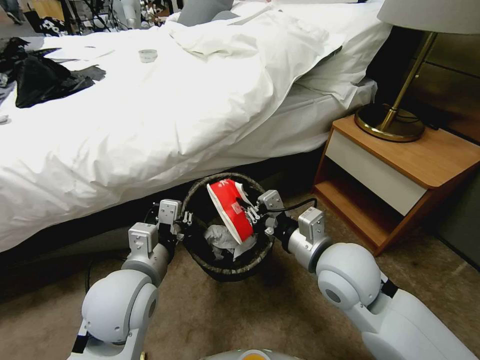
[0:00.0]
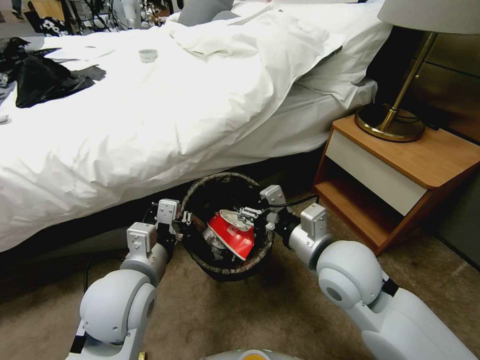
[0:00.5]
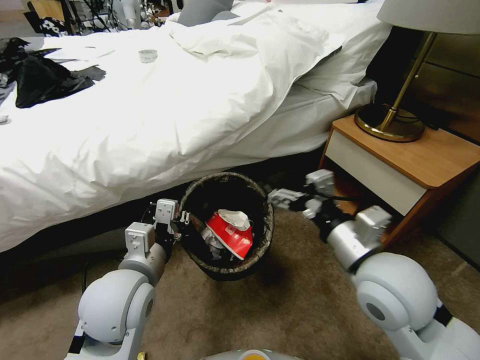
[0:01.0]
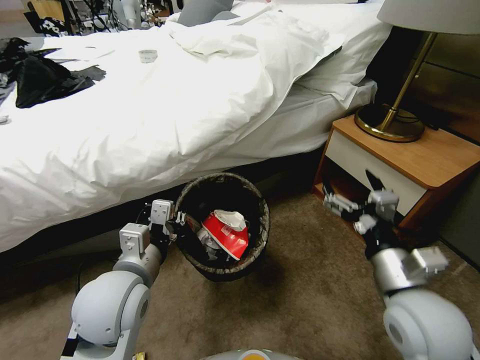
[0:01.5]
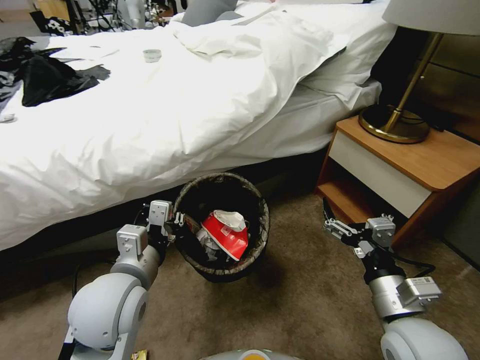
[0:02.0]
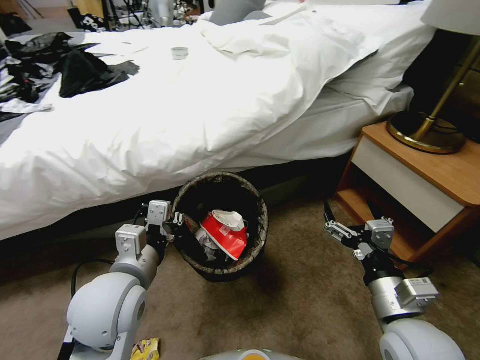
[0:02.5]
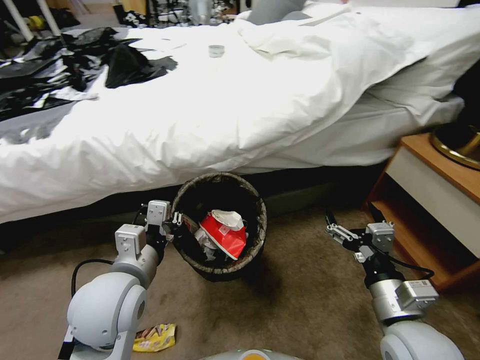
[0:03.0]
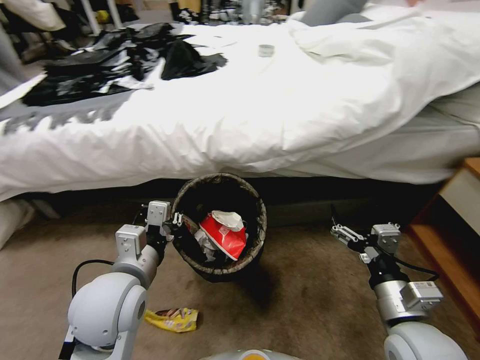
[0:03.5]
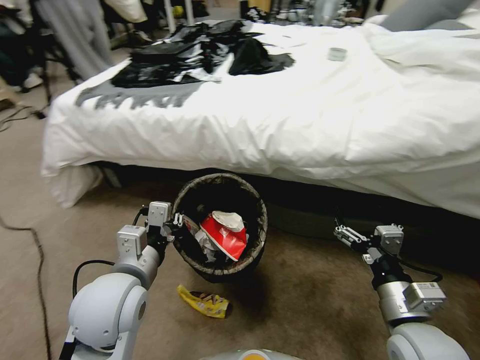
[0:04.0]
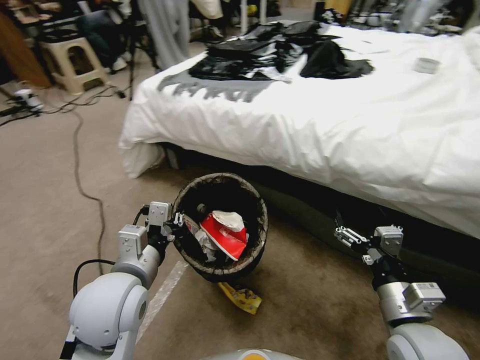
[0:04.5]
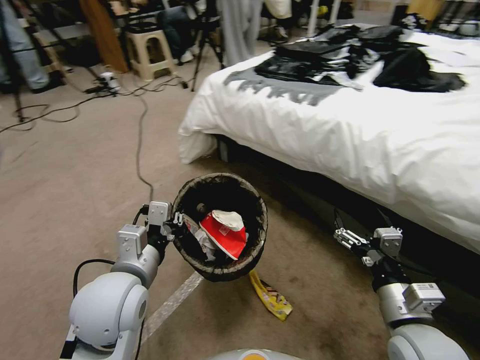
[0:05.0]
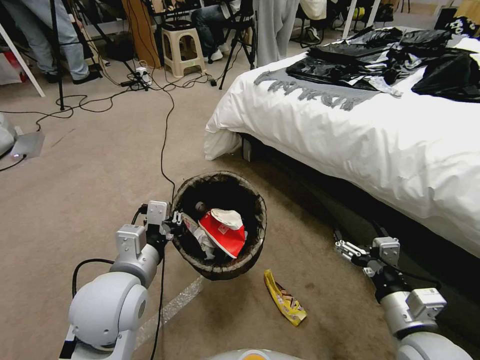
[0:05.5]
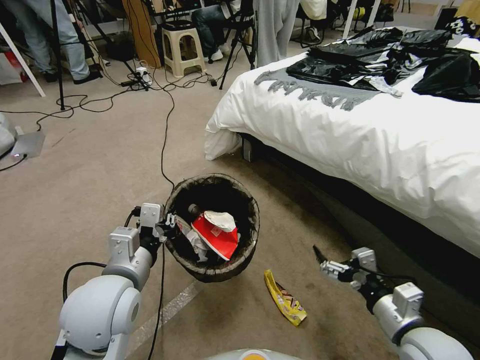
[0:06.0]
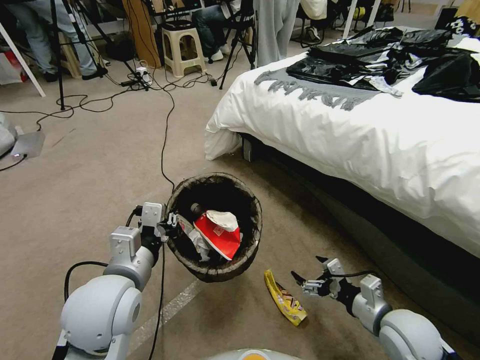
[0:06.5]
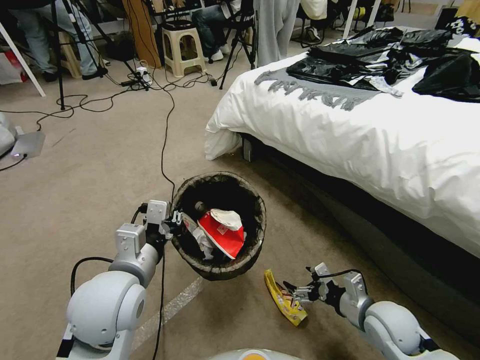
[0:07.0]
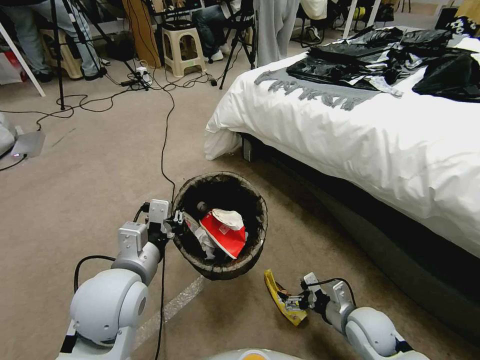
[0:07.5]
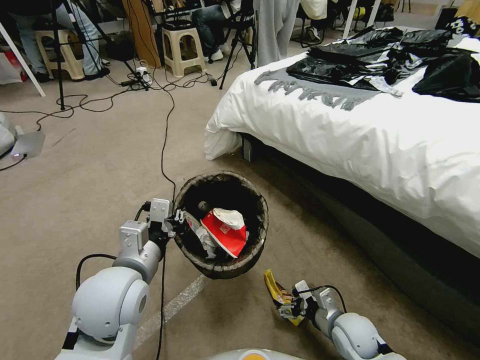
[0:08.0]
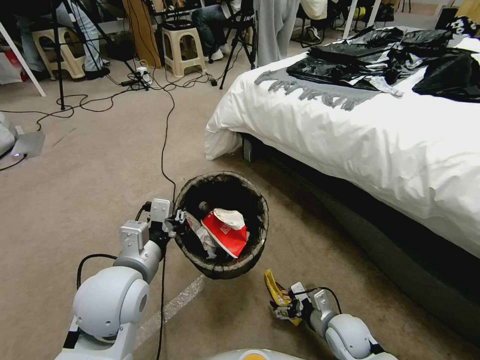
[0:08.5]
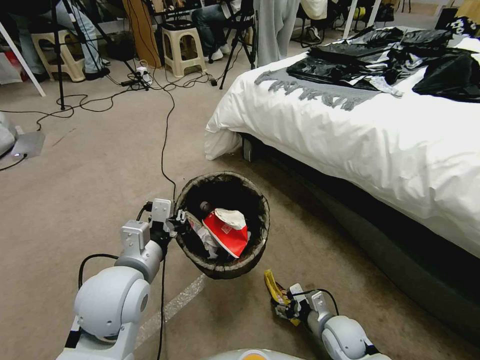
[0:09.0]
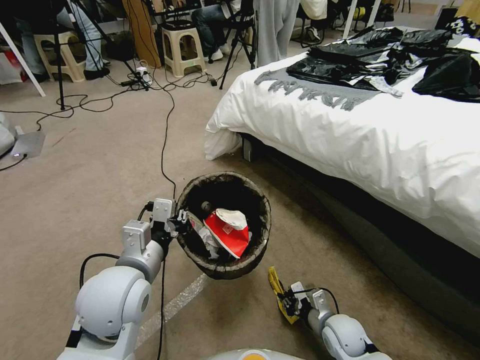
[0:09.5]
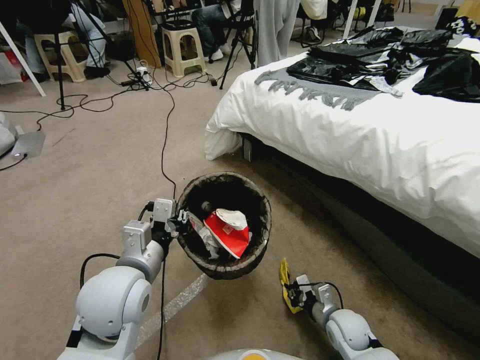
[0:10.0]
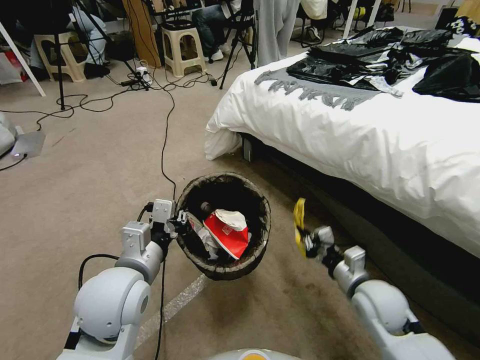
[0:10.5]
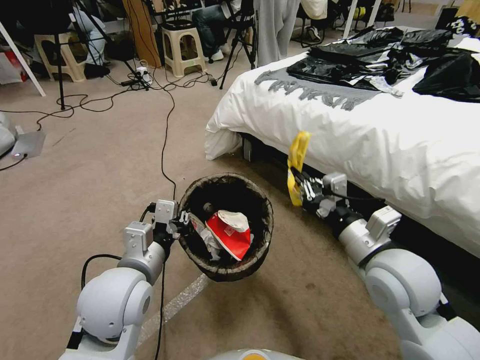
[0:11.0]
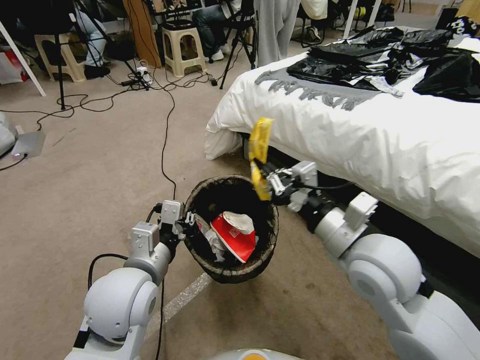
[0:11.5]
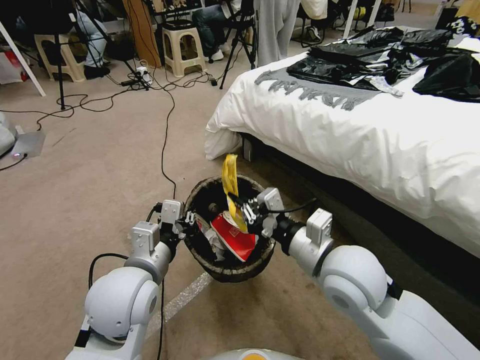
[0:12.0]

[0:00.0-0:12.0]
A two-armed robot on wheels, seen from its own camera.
Task of the whole recording: Pick up the trash bin, then pick up the garbage from the floor and place it into the trash bin.
0:00.0 to 0:02.0: The right gripper goes roughly 15 cm to the right, backward and downward, and opens its fingers.
0:04.0 to 0:06.0: The right gripper ends up some 5 cm from where it was.
0:06.0 to 0:08.0: The right gripper travels downward by about 15 cm.
0:08.0 to 0:10.0: The right gripper closes.
0:10.0 to 0:12.0: The right gripper travels upward by about 30 cm.

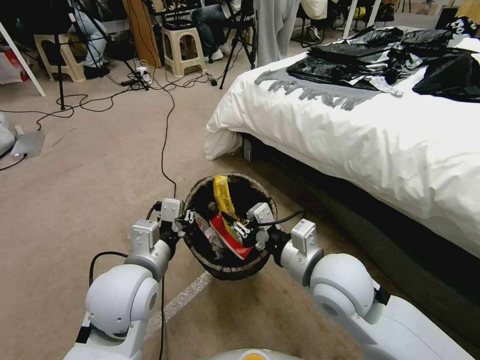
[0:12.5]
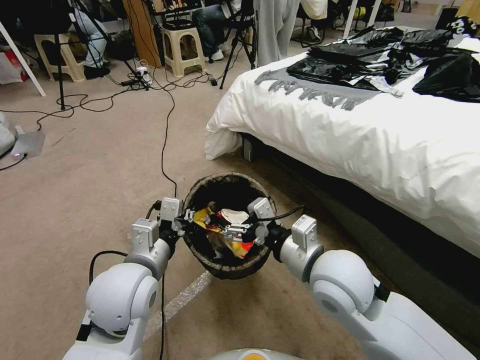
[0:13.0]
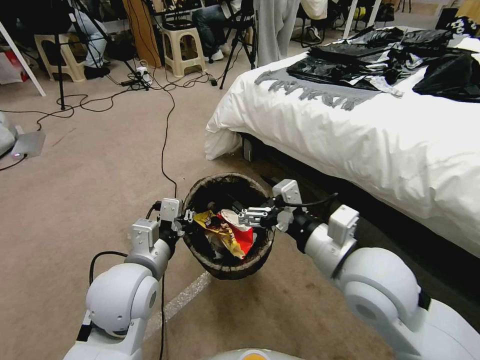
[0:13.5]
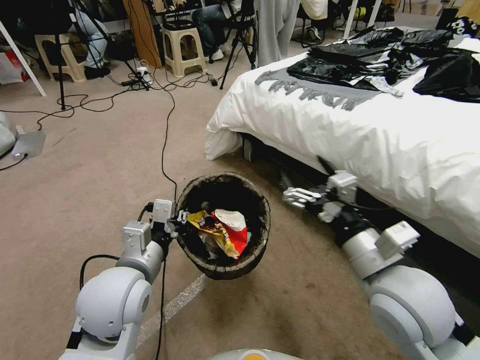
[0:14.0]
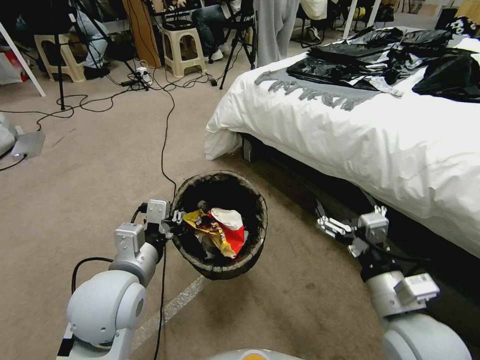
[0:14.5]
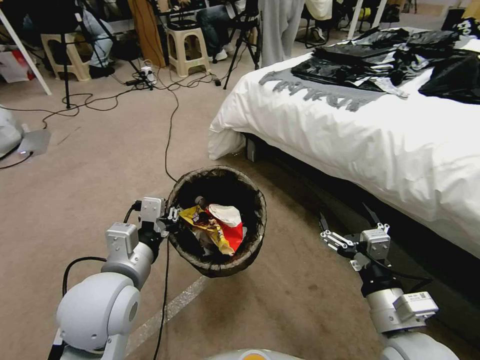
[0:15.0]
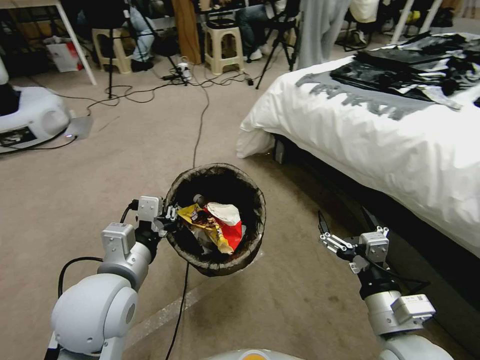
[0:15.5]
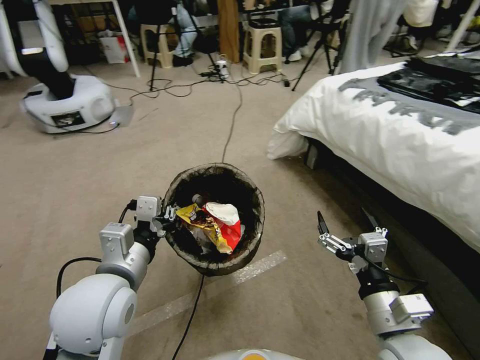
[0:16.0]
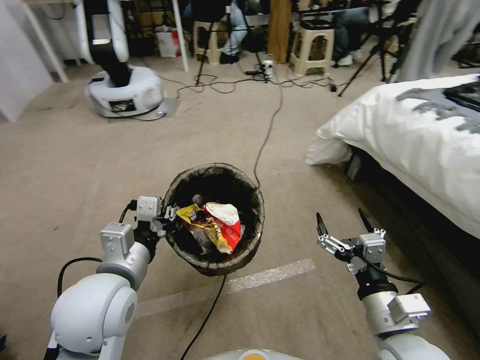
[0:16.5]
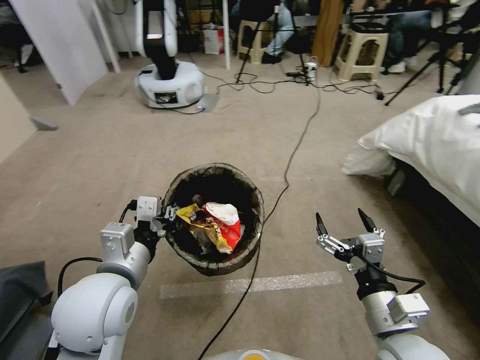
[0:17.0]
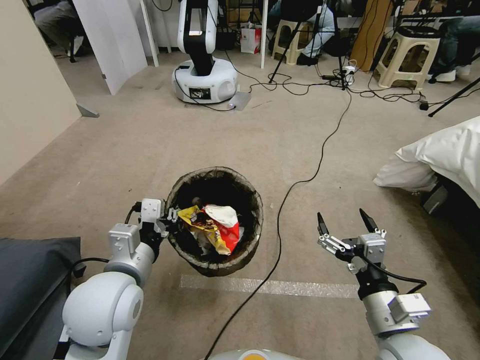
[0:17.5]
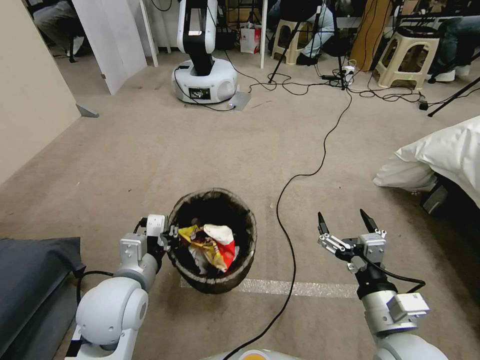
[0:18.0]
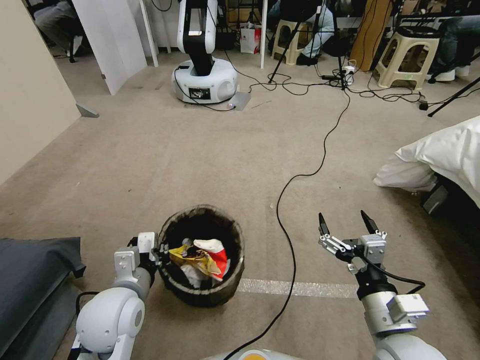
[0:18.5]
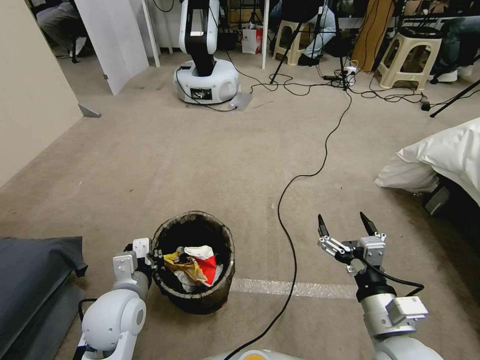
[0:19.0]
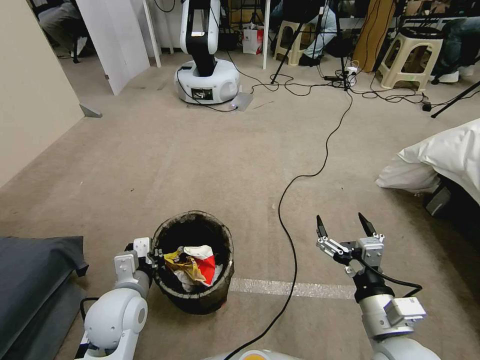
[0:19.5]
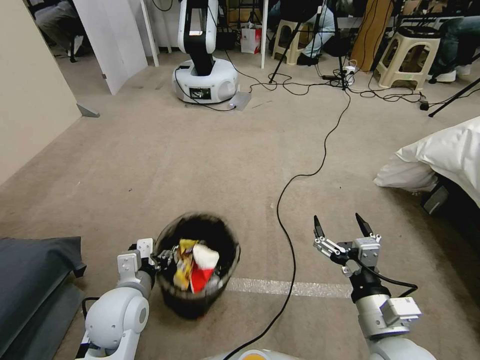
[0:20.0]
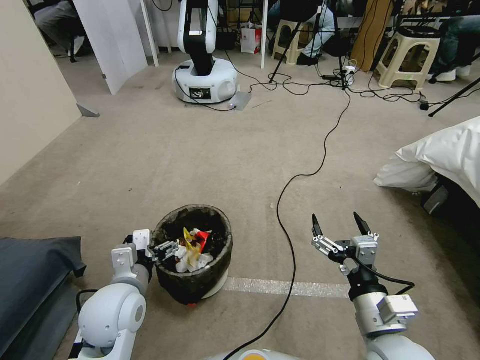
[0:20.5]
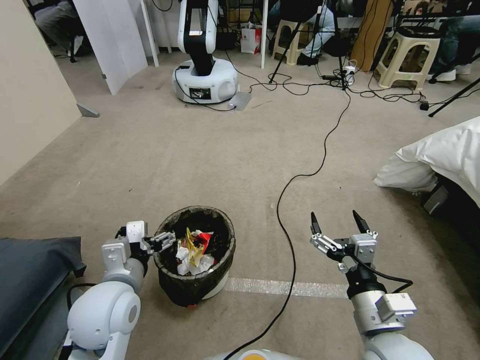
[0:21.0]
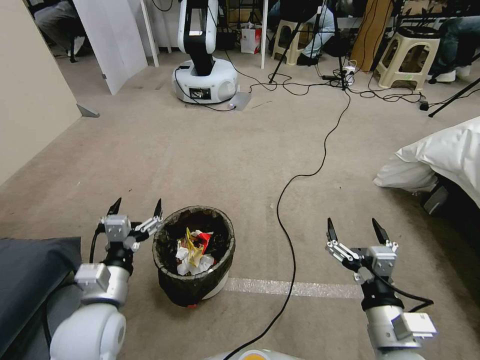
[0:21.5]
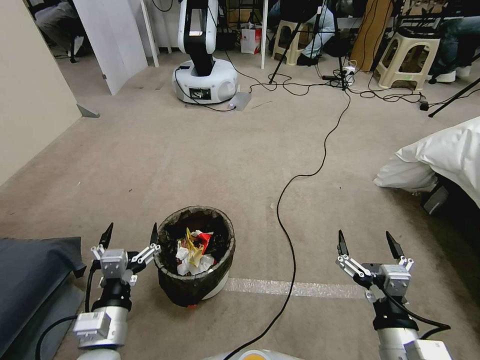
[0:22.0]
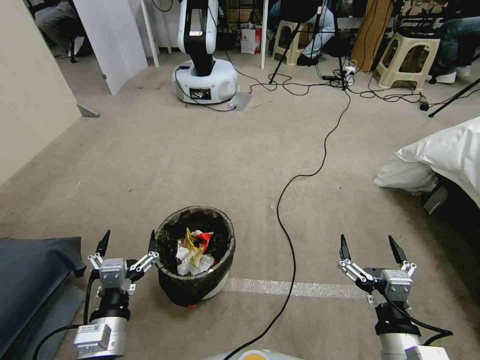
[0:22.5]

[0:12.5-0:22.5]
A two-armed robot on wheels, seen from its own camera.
Task of the whole recording: Pick up the trash bin, then pick up the garbage from the floor and place it into the trash bin.
0:12.5 to 0:14.5: The right gripper goes about 15 cm to the right and backward, and opens.
0:16.5 to 0:18.5: The left gripper shifts about 10 cm downward.
0:18.5 to 0:20.5: The left gripper opens up.
0:20.5 to 0:22.5: The right gripper heads backward, covering approximately 5 cm, while the left gripper is displaced backward by some 10 cm.
